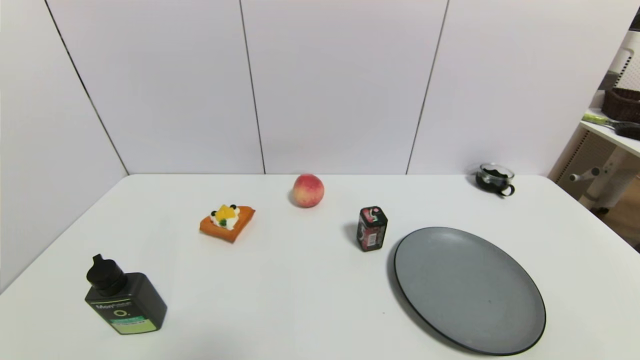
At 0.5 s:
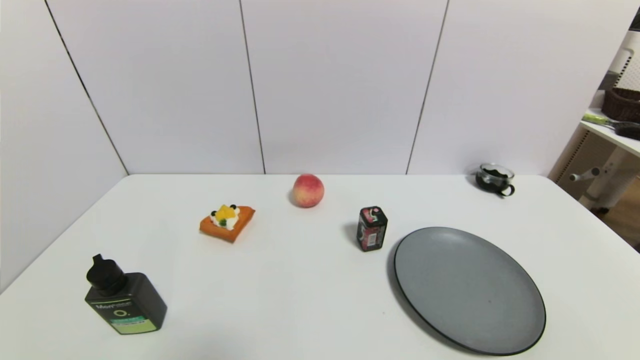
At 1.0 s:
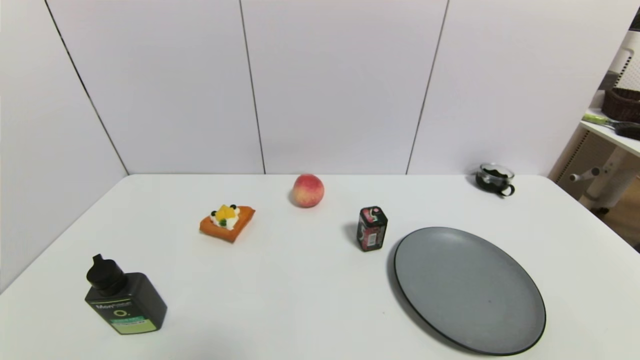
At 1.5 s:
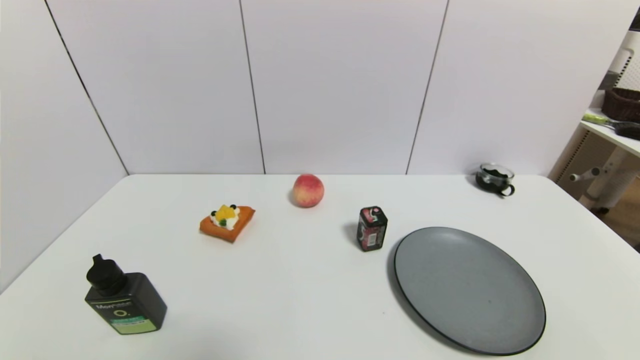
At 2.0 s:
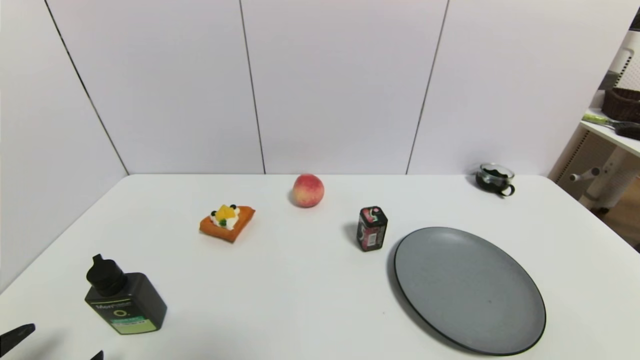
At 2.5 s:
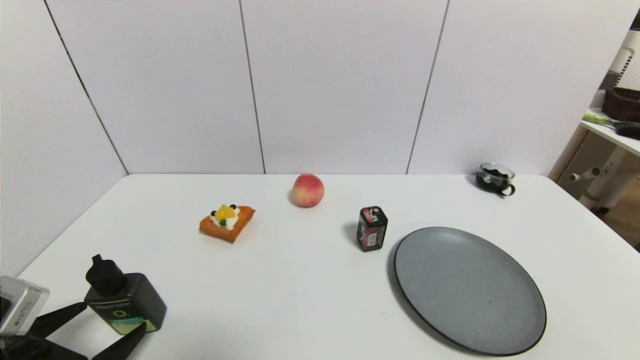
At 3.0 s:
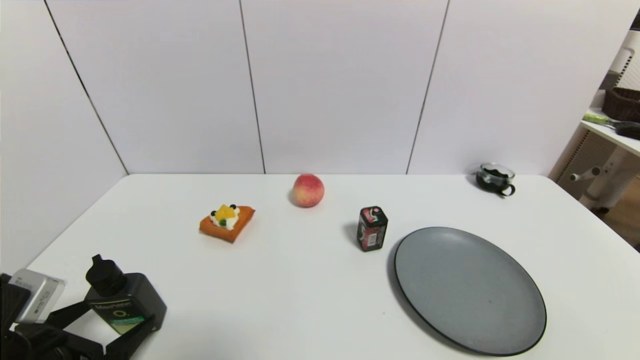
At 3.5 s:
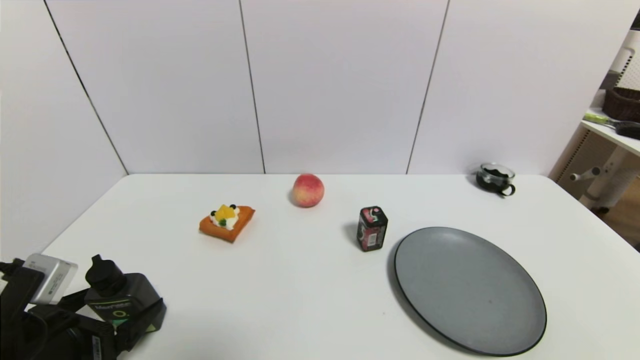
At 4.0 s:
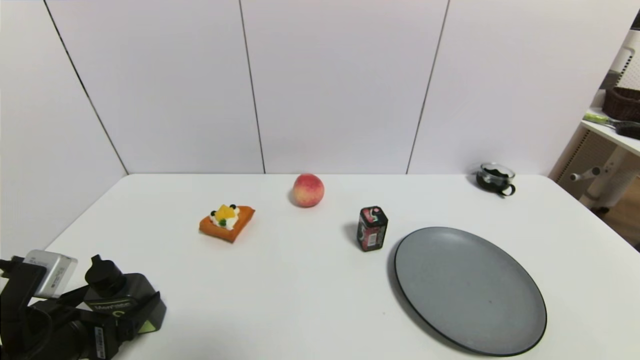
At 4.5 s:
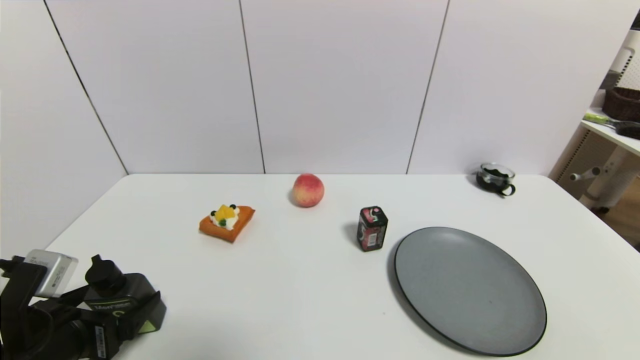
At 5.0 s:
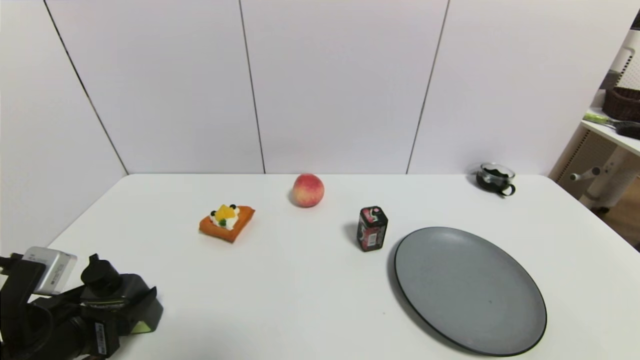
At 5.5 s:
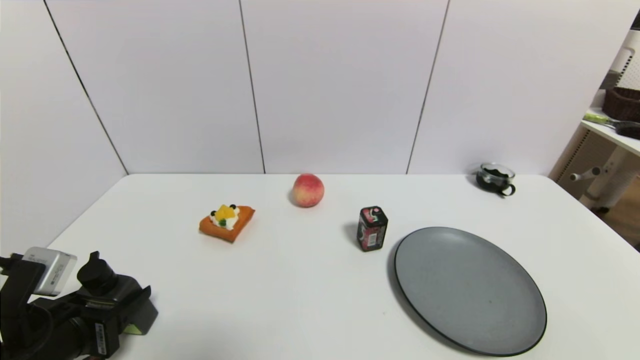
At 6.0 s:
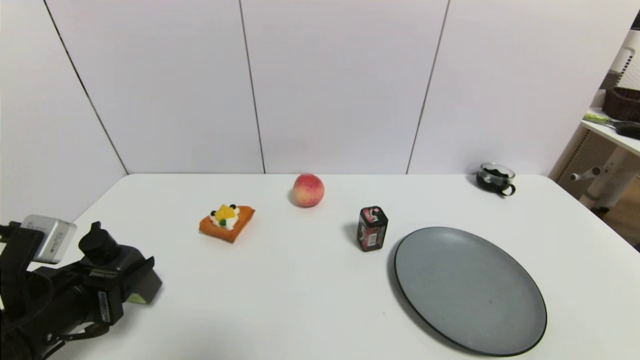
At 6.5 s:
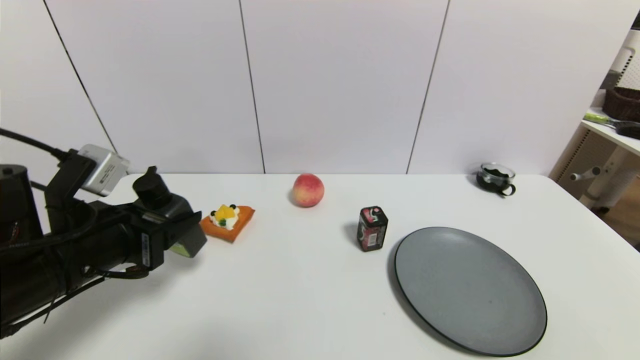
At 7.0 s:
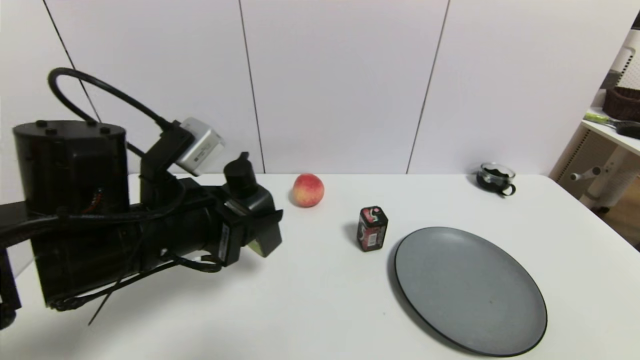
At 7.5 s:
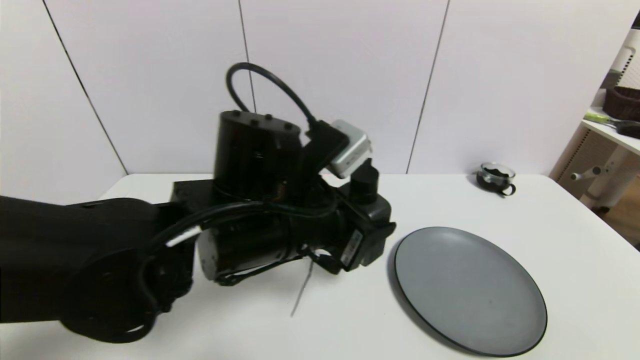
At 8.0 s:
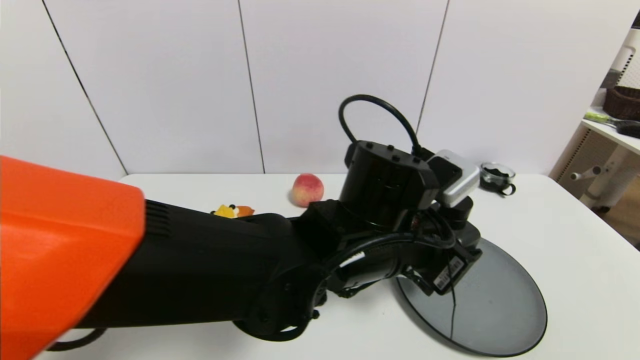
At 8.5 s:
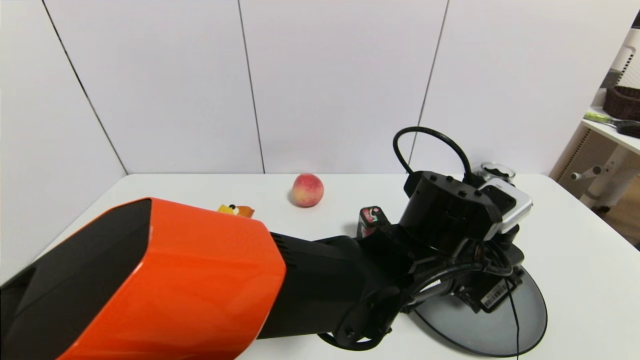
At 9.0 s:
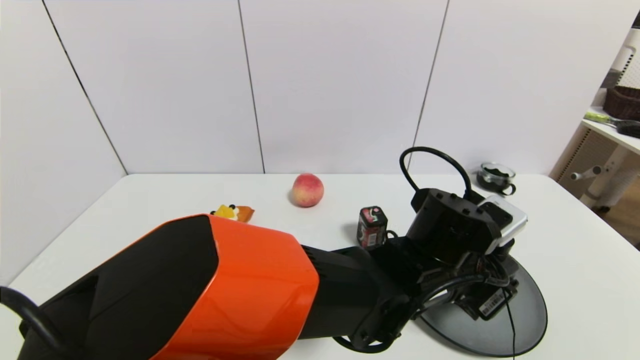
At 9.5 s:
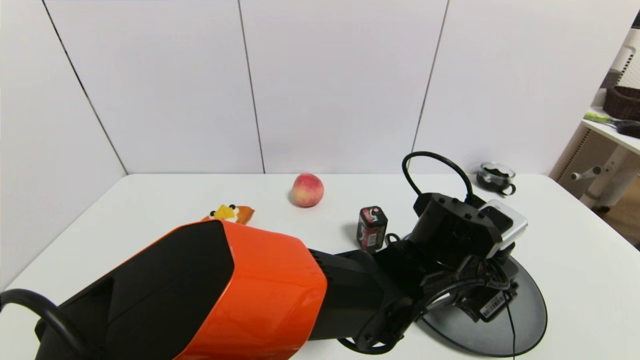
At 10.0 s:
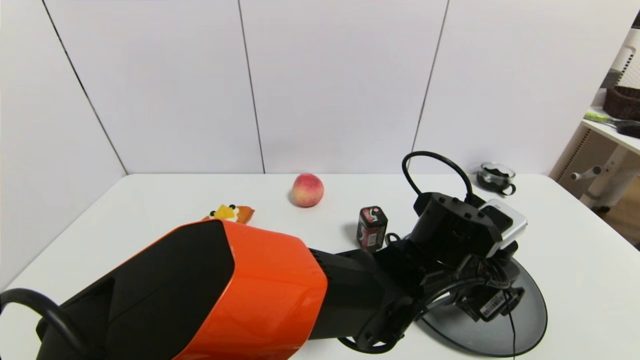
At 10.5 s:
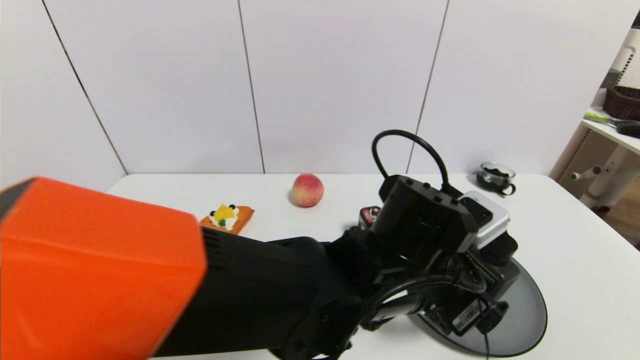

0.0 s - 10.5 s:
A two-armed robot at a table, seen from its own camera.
Task of the whole recording: use a gripper to pick the target object and place on the gray plate.
Step, 0.0 s - 5.0 s: Grasp the hard facial cleanser with the left gripper.
Step, 5.5 s - 10.0 s: Place the hard facial cleanser on the gray plate with the left gripper.
0.0 s - 2.0 s: The left gripper is displaced upward and forward by some 10 cm.
2.0 s - 4.0 s: The left gripper travels forward by approximately 10 cm.
4.0 s - 6.5 s: The left gripper heads upward and forward, covering some 10 cm, and closes up.
6.5 s - 8.5 s: The left gripper heads to the right, covering about 35 cm.
8.5 s - 10.5 s: The left gripper travels to the left by some 5 cm, and opens up.

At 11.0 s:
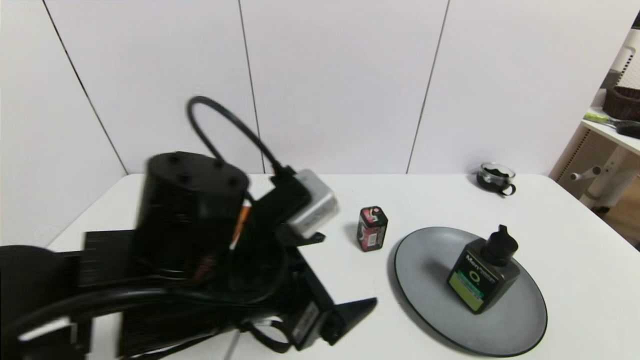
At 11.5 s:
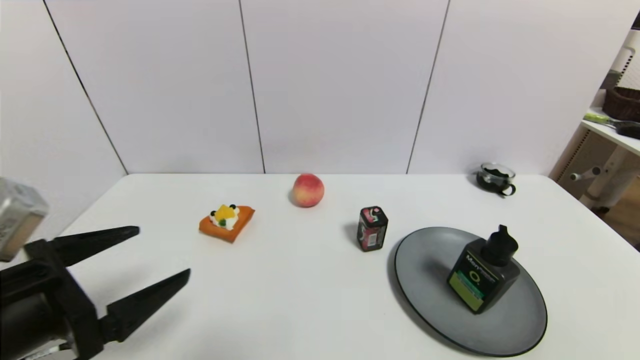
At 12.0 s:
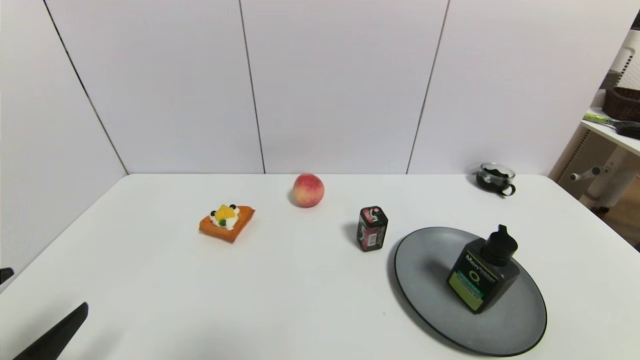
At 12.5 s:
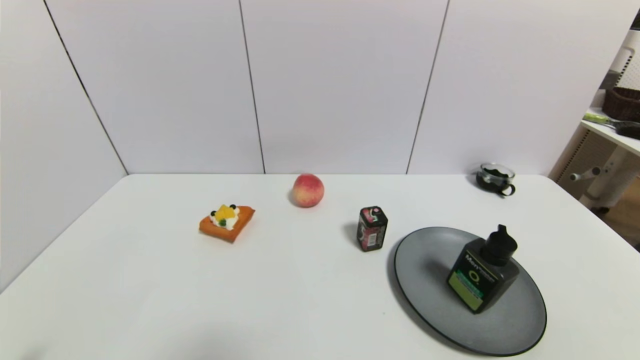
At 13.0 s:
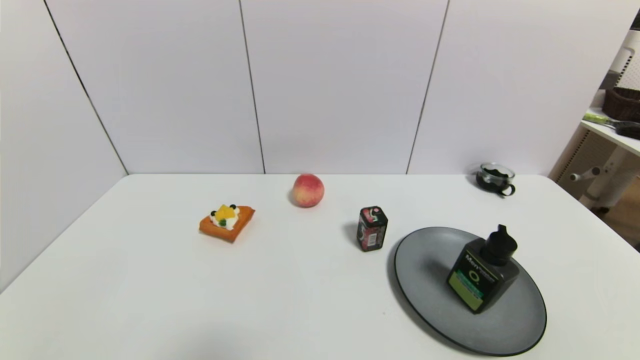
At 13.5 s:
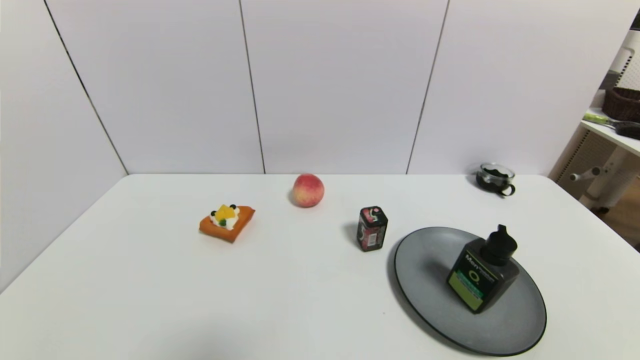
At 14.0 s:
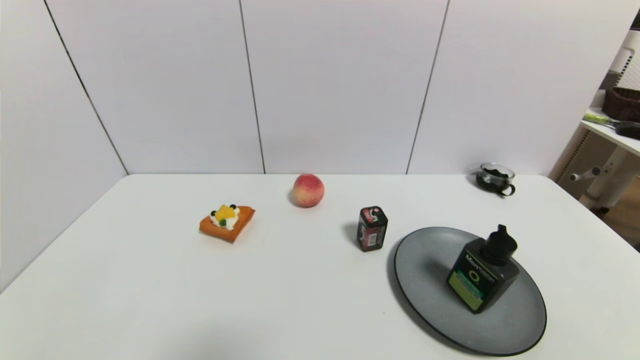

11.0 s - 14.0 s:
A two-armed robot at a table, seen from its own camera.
Task of the whole recording: use a gripper to pick the target object and place on the gray plate.
11.0 s - 12.5 s: The left gripper travels to the left, backward and downward by approximately 30 cm.

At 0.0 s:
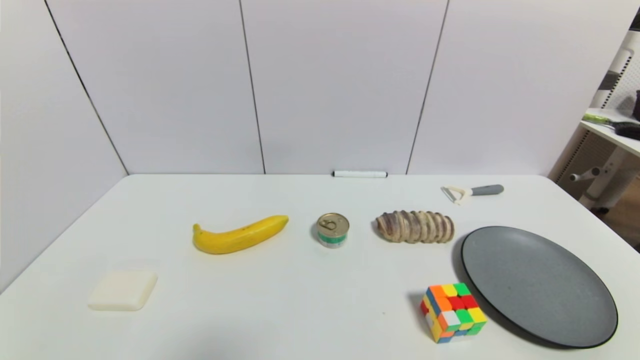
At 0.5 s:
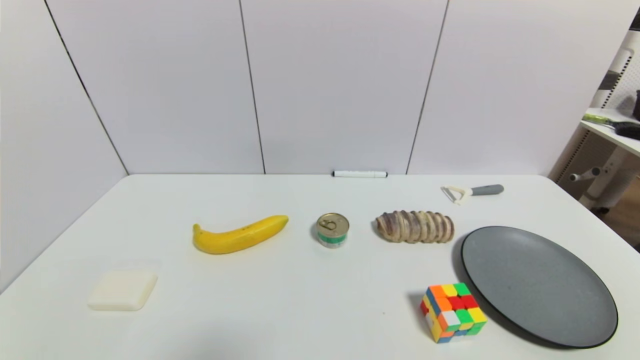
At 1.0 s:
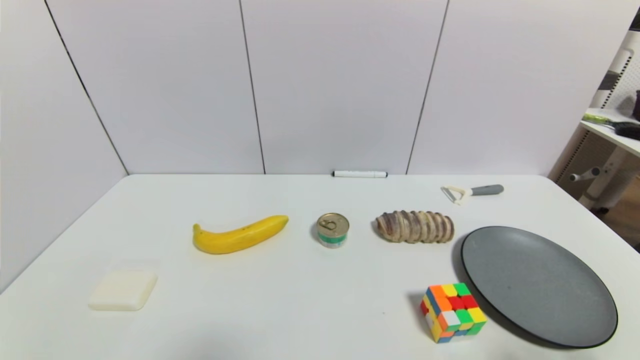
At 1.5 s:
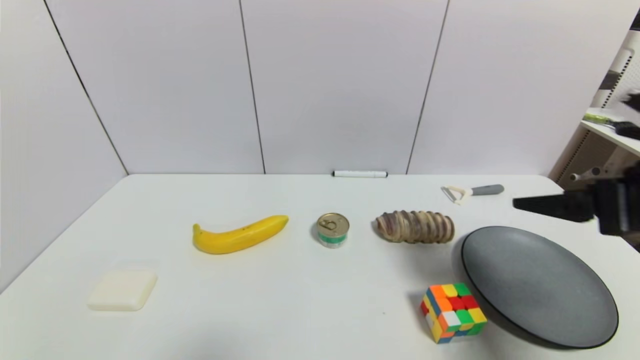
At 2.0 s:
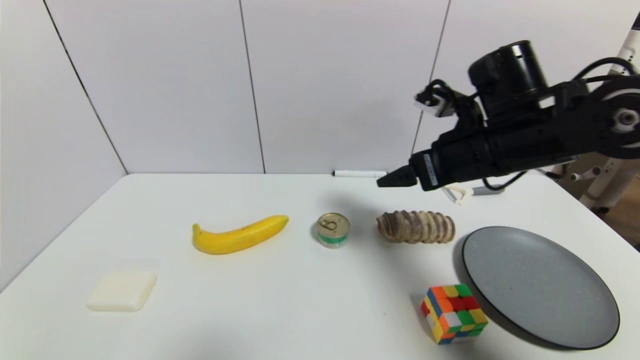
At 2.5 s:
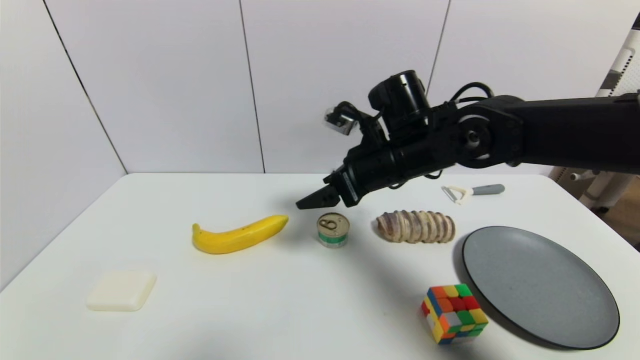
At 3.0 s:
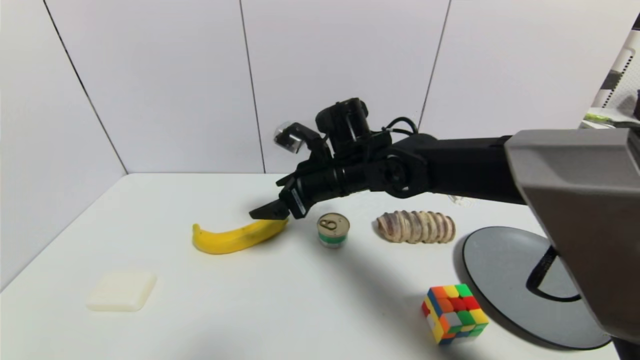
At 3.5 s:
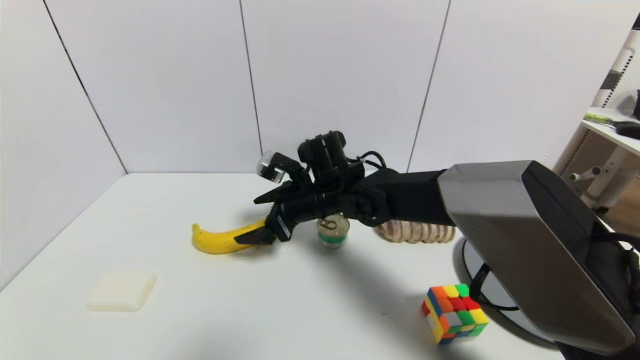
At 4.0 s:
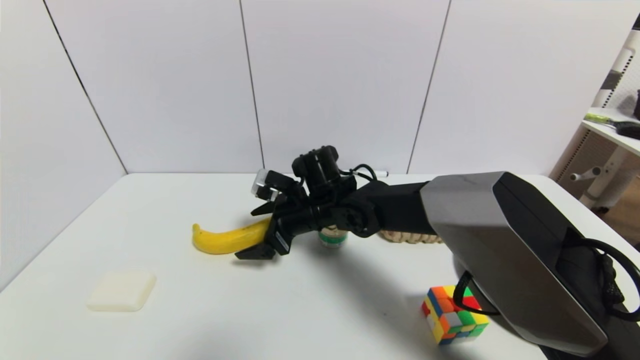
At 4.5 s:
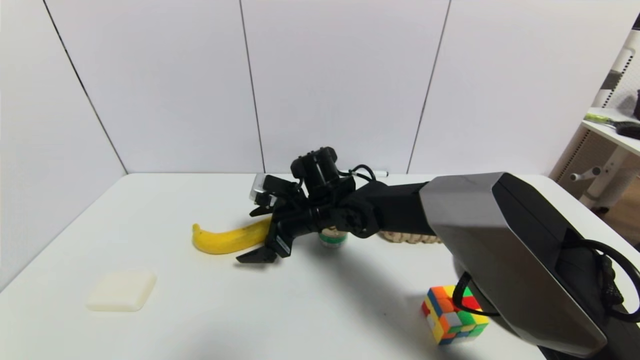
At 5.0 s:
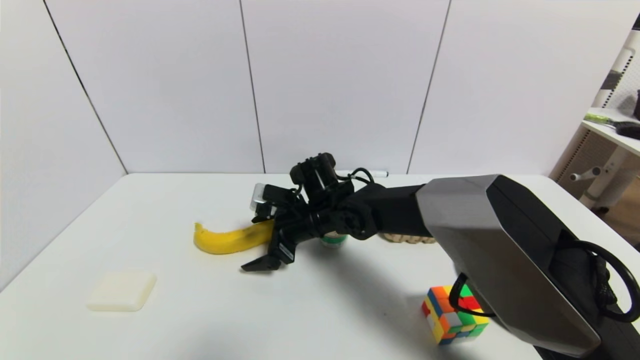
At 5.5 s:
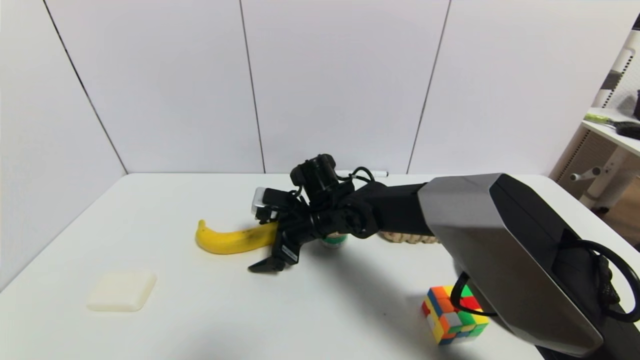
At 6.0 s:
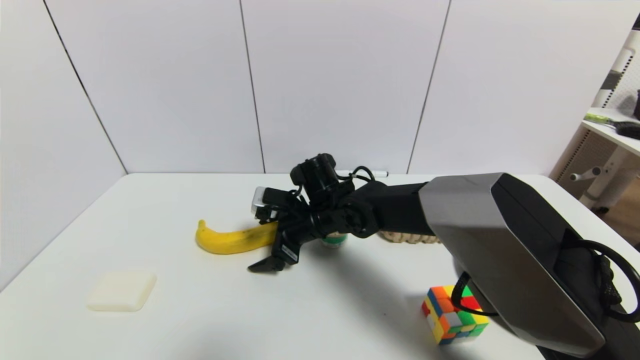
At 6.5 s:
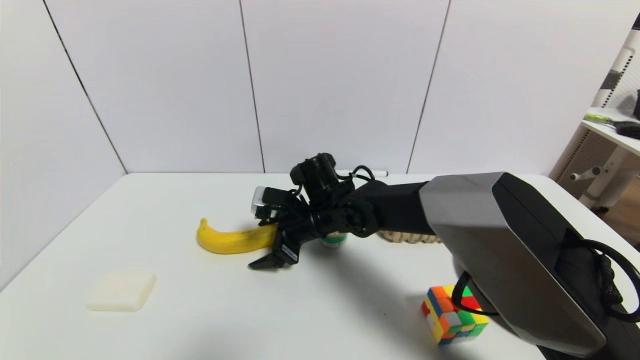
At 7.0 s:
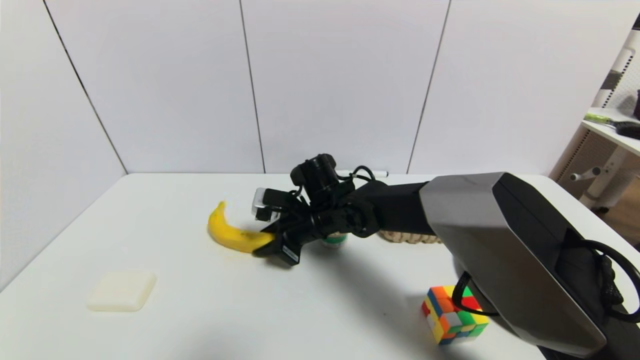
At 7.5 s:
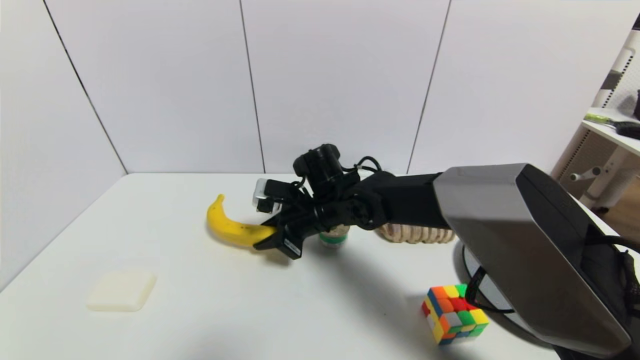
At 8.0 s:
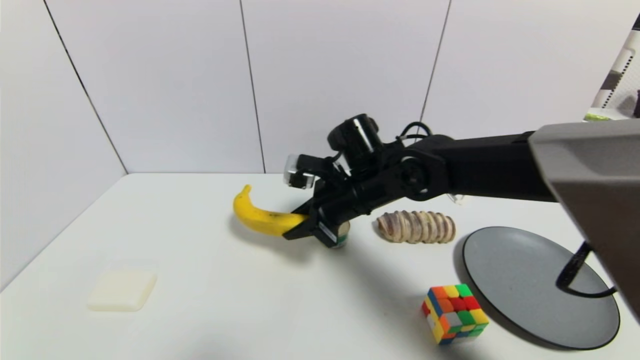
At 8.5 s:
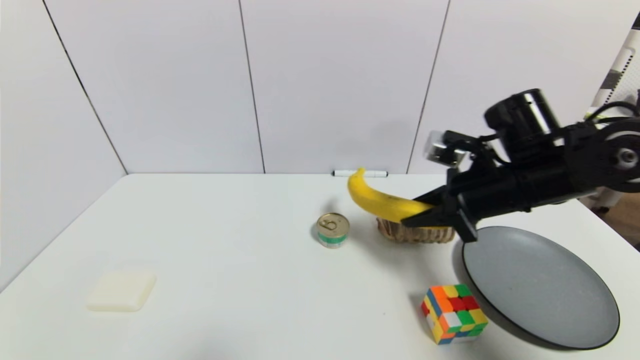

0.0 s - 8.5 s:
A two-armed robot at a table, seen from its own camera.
Task of the whole recording: use a gripper to pick the target object and place on the gray plate.
Step, 0.0 s - 7.0 s: Grasp the banana with the right gripper.
0.0 s - 2.0 s: The right gripper is displaced forward, upward and to the left by about 40 cm.
2.0 s - 4.0 s: The right gripper travels to the left and downward by approximately 25 cm.
4.0 s - 6.5 s: The grippers make only small movements.
6.5 s - 8.5 s: The right gripper goes approximately 25 cm to the right and upward, and closes up.
